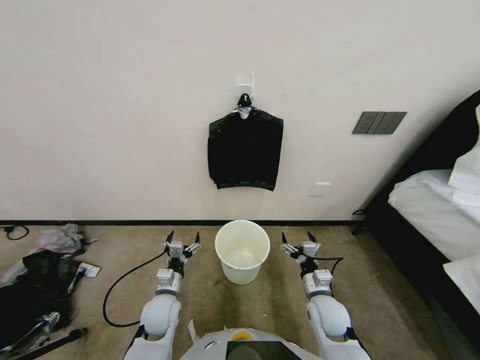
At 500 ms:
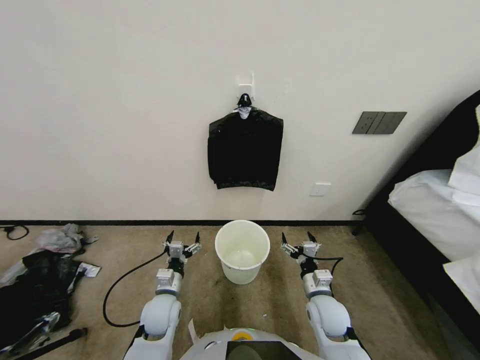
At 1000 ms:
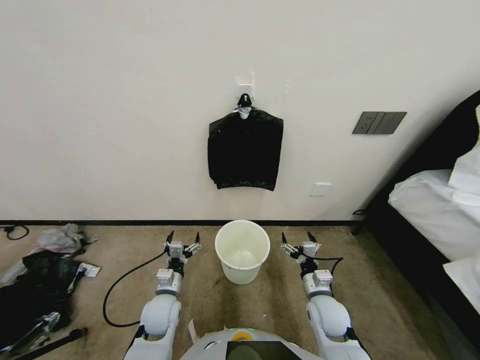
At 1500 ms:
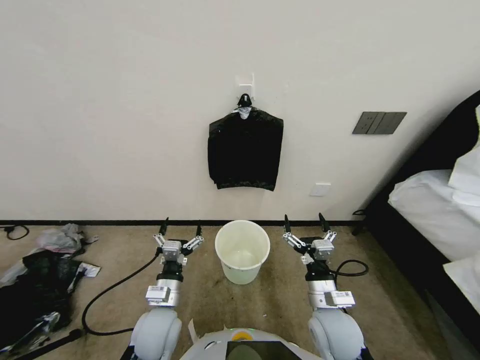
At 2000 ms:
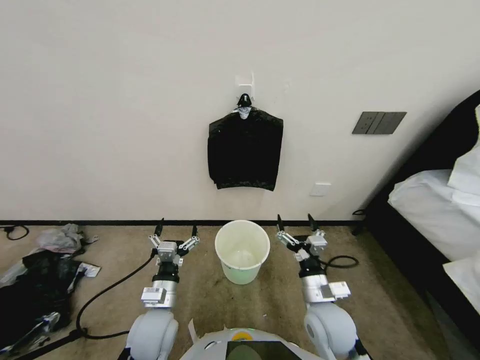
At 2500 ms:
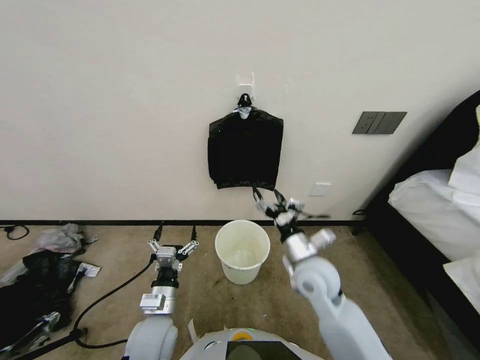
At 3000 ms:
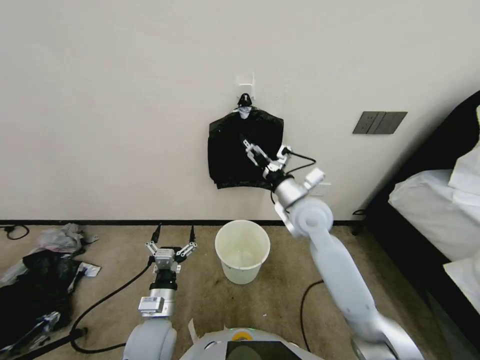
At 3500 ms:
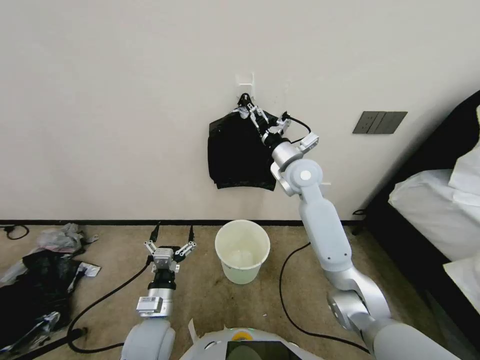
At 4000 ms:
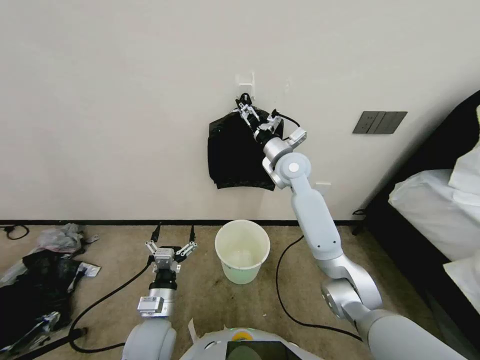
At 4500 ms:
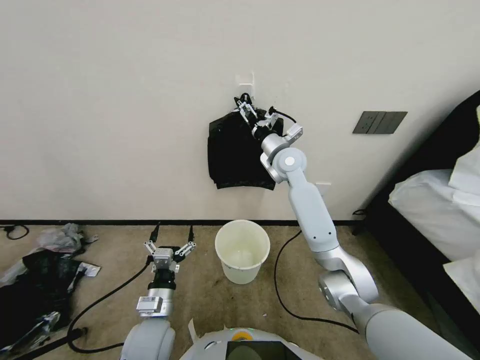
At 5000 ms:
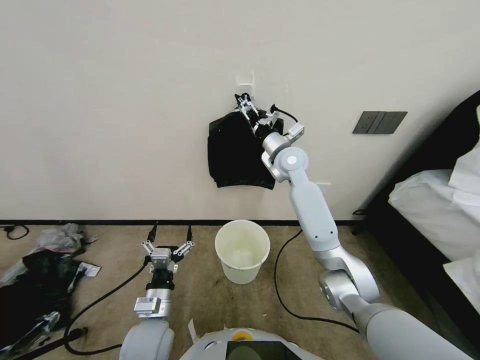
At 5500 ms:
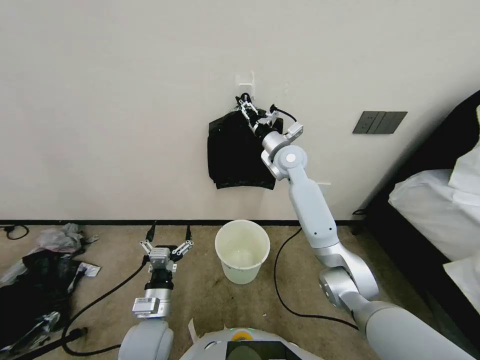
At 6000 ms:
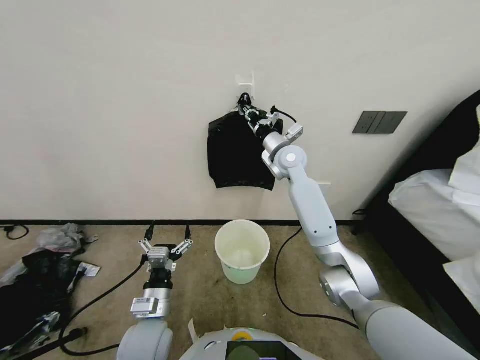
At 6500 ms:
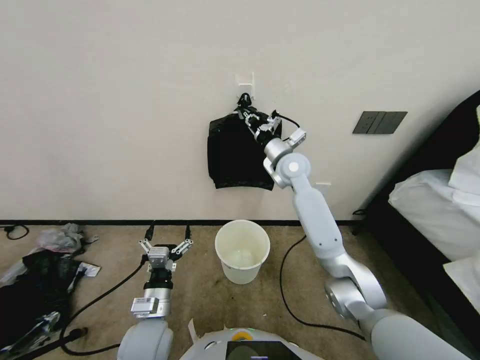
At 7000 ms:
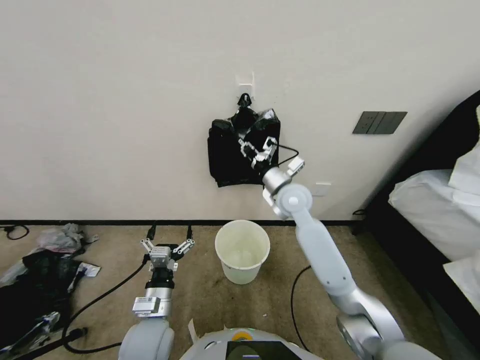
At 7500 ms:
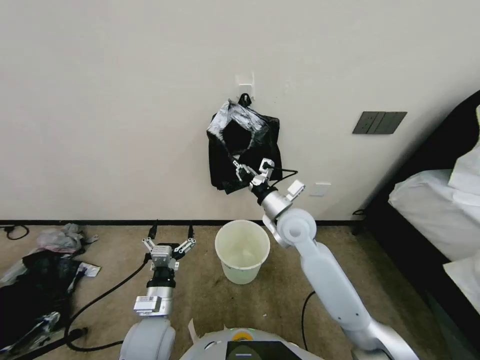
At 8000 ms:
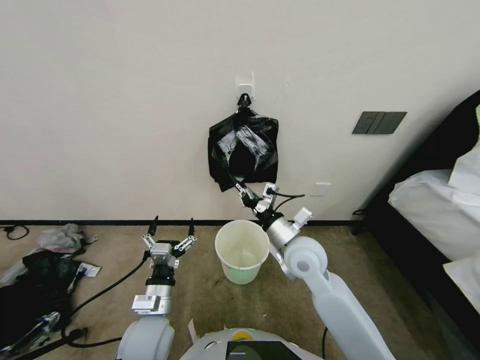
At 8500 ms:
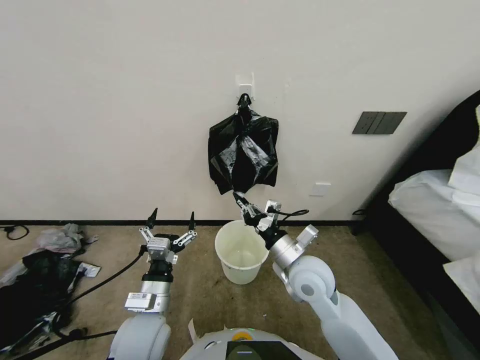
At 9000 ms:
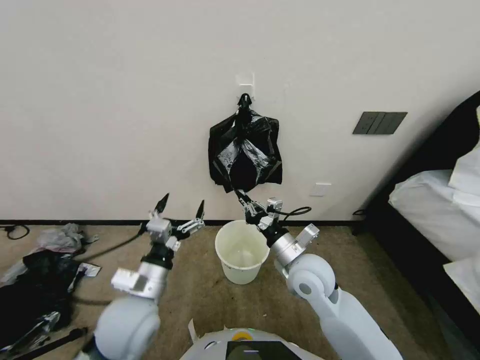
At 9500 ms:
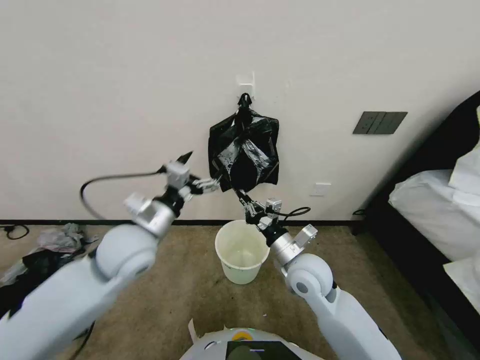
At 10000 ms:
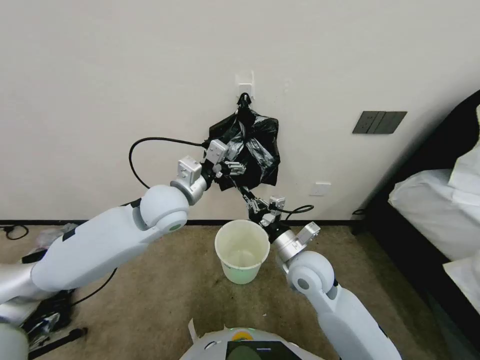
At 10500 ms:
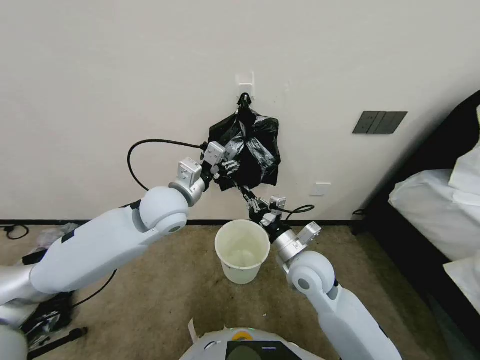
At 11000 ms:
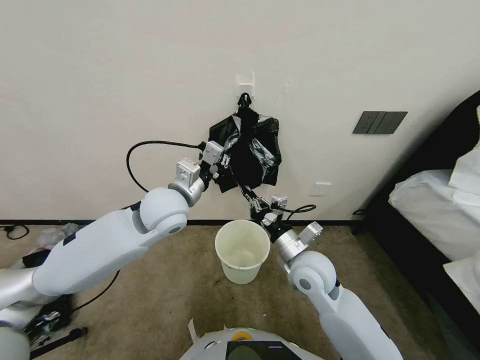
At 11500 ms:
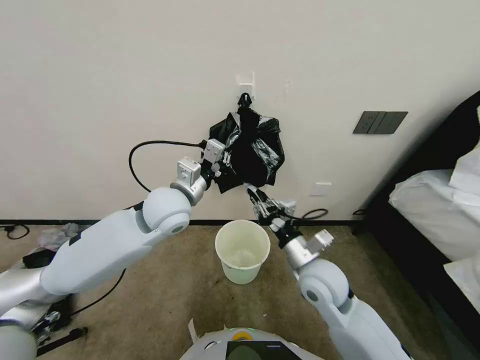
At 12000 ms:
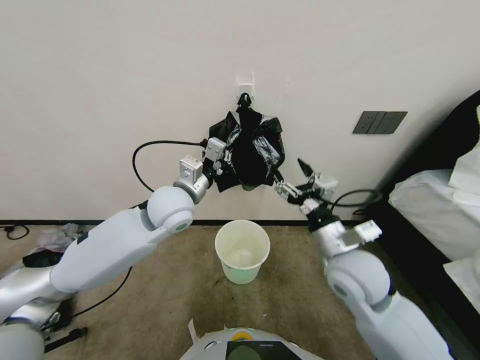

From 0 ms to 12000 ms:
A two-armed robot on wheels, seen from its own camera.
Task of the whole recording: Place a trash bag onto the trash bin.
From 2000 ms to 4000 ms: The right gripper travels forward and upward by some 40 cm.
From 4000 ms to 6000 ms: The right gripper closes up.
From 6000 ms to 8000 ms: The right gripper shifts roughly 25 cm backward and downward.
From 8000 ms to 10000 ms: The left gripper goes some 30 cm upward and forward.
From 10000 ms to 12000 ms: The right gripper heads upward and to the right, covering roughly 10 cm, and opens its fingers. The left gripper closes up.

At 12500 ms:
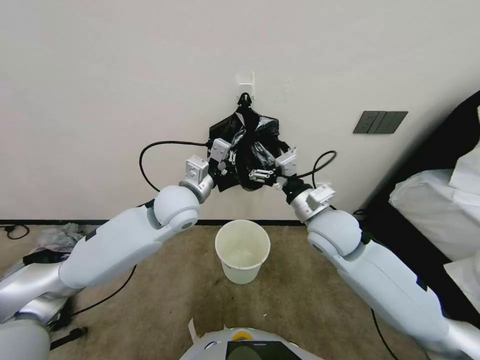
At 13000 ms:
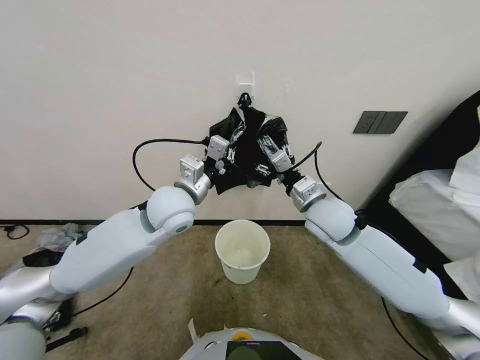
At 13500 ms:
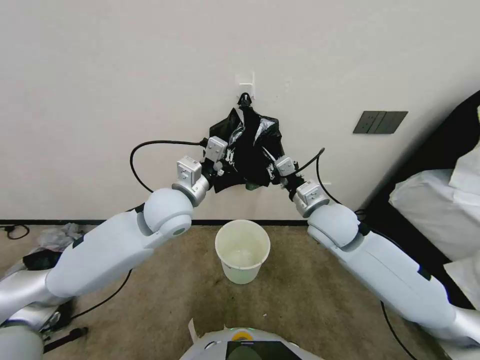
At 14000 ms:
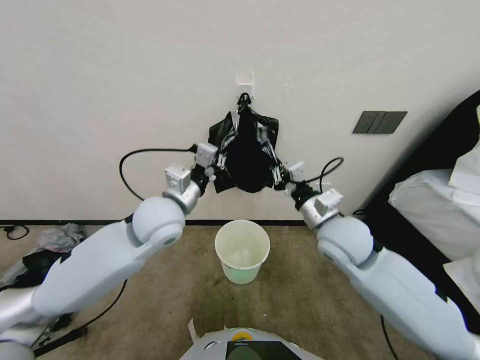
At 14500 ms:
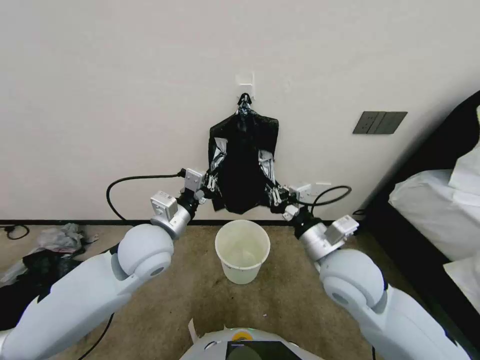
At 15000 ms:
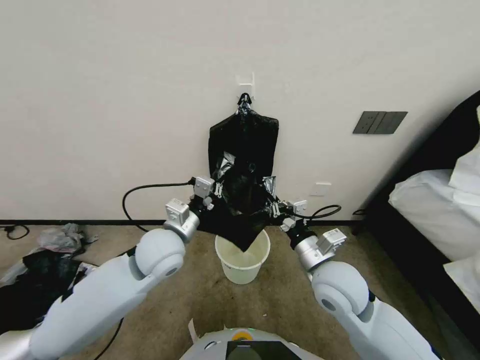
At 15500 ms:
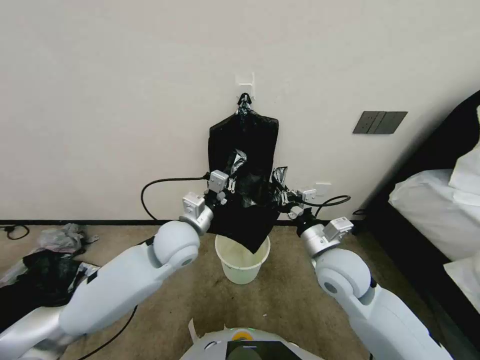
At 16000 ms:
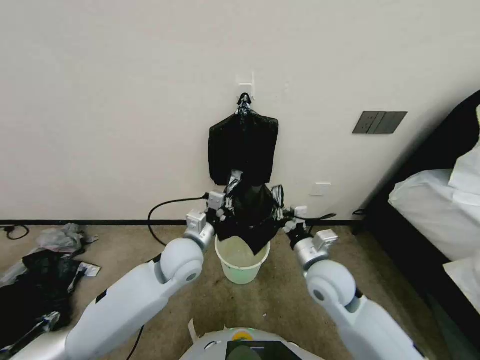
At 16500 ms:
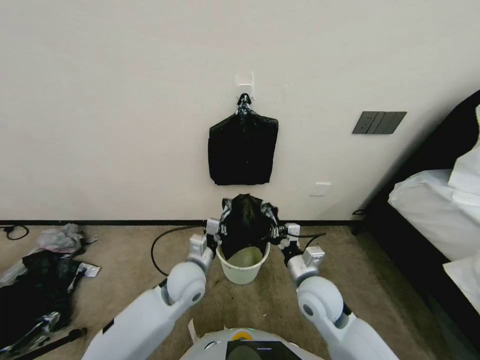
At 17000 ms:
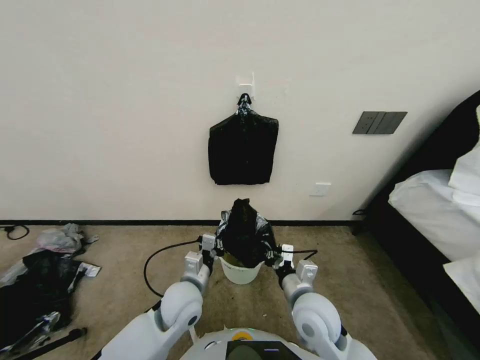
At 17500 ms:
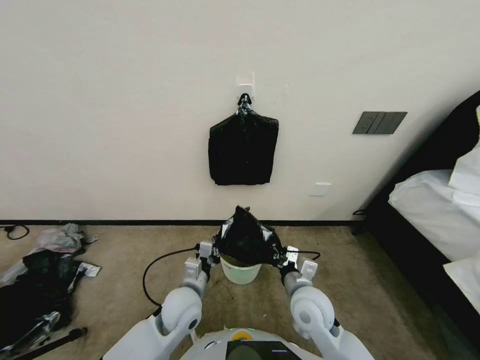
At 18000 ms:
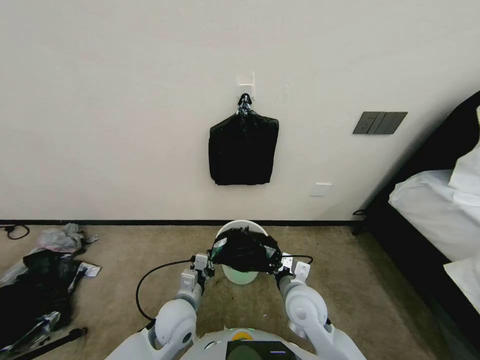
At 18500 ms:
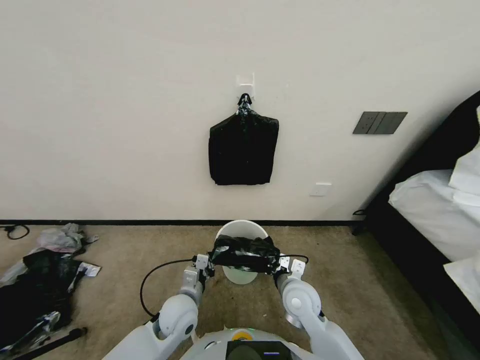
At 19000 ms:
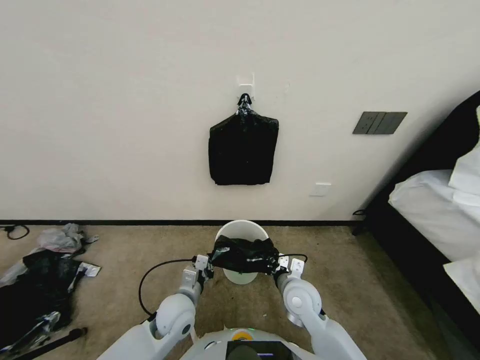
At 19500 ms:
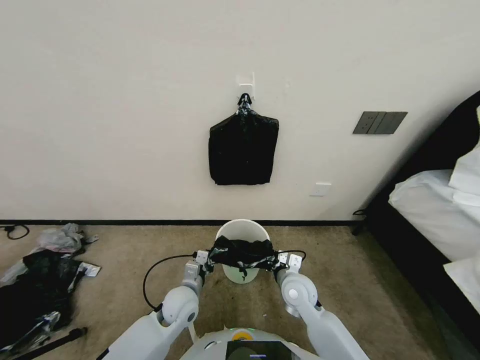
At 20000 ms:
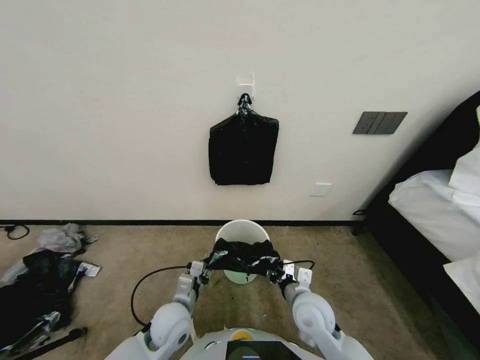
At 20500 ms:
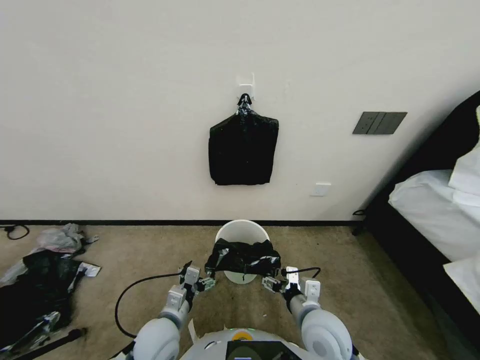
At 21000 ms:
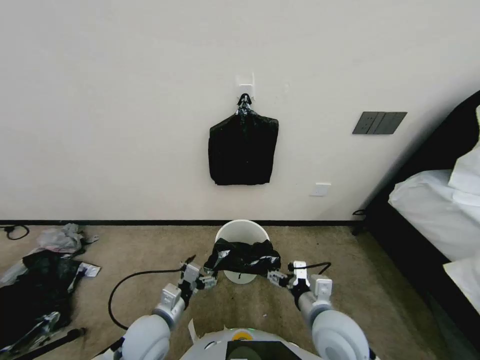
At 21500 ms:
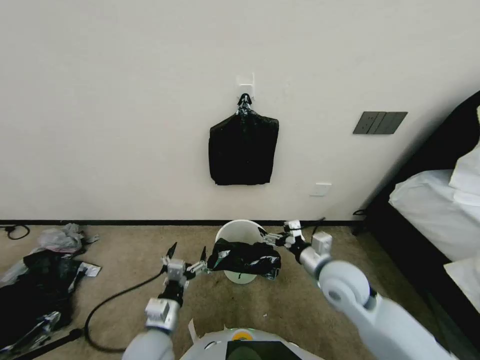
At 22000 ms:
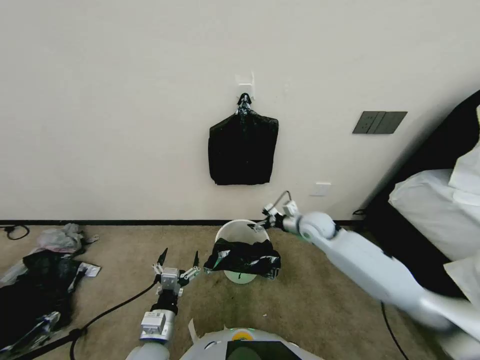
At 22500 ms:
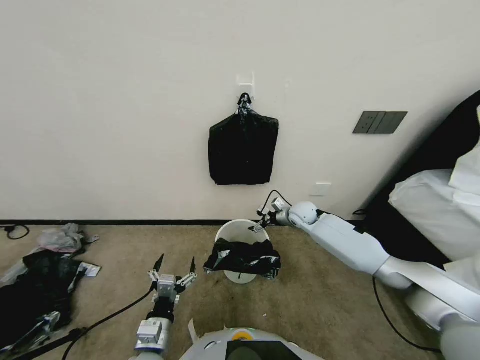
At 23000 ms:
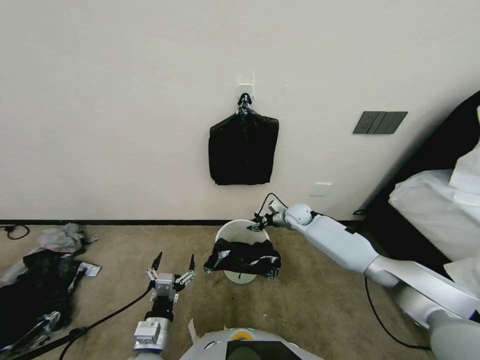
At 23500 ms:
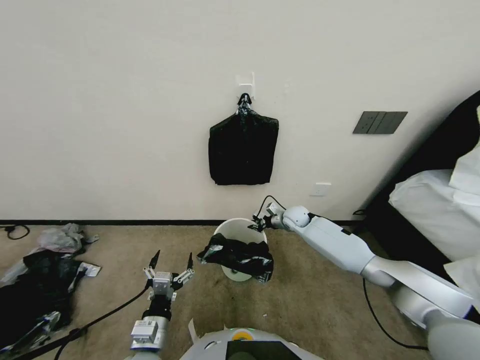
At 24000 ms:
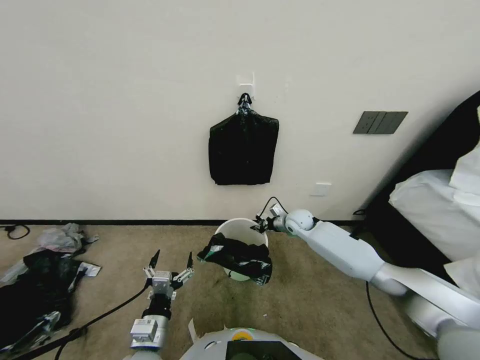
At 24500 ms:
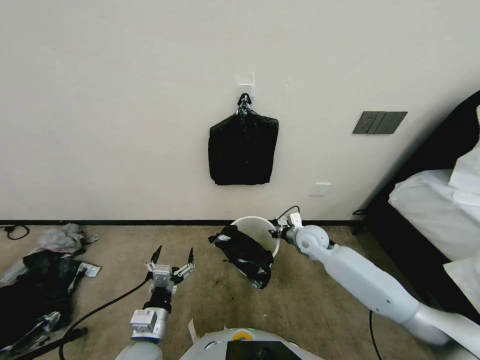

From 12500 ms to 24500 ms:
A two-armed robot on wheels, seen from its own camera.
Task of the whole recording: Place a trash bag onto the trash bin.
From 12500 ms to 14500 ms: Both grippers move backward, roughly 5 cm. The right gripper closes its fingers.
From 14500 ms to 16500 ms: Both grippers travel together downward, approximately 15 cm.
From 16500 ms to 18500 ms: The left gripper shifts approximately 10 cm downward and backward. The right gripper moves downward, some 5 cm.
From 18500 ms to 20500 ms: The left gripper ends up some 5 cm from where it was, and opens. The right gripper travels backward by approximately 5 cm, and opens up.
From 20500 ms to 22500 ms: The left gripper moves backward, approximately 5 cm. Meanwhile the right gripper shifts roughly 35 cm forward.
From 22500 ms to 24500 ms: The right gripper heads backward, covering about 10 cm, and closes its fingers.

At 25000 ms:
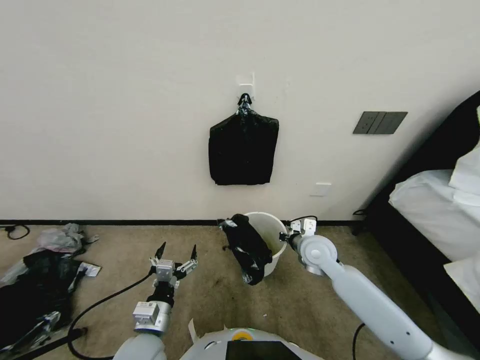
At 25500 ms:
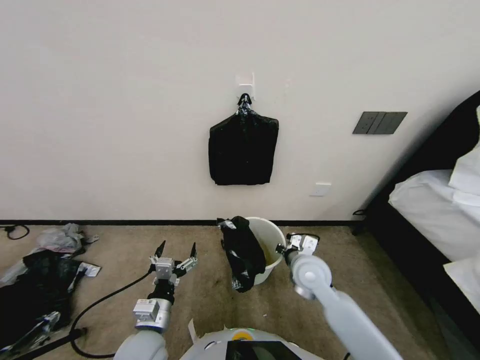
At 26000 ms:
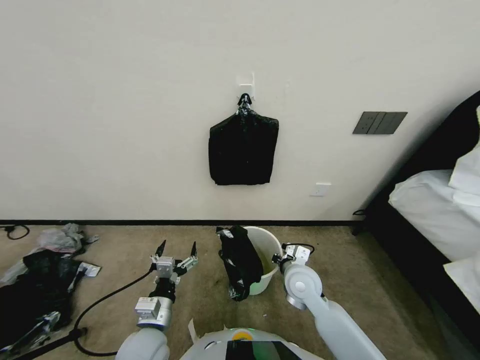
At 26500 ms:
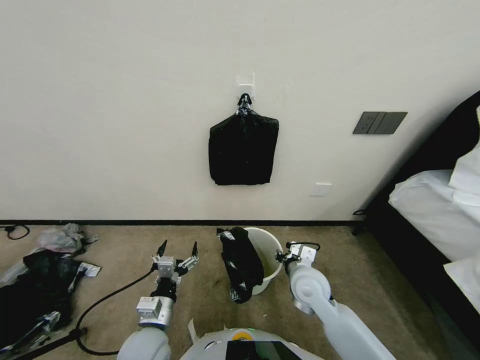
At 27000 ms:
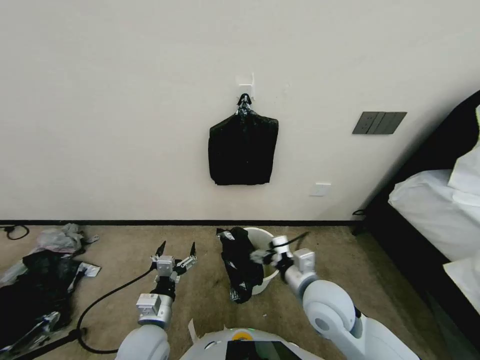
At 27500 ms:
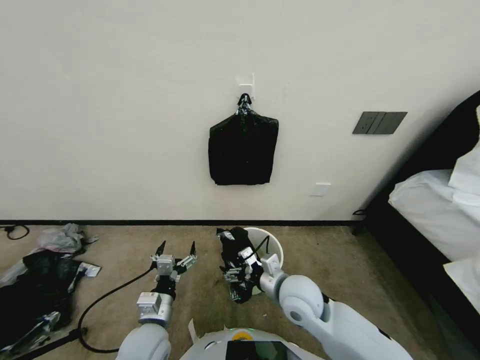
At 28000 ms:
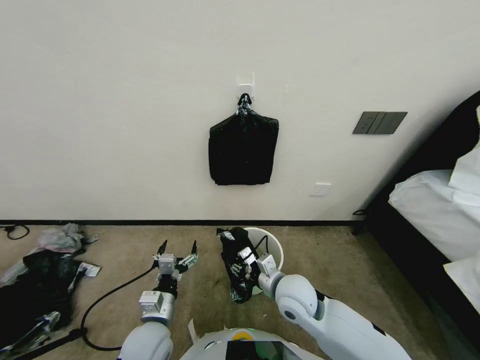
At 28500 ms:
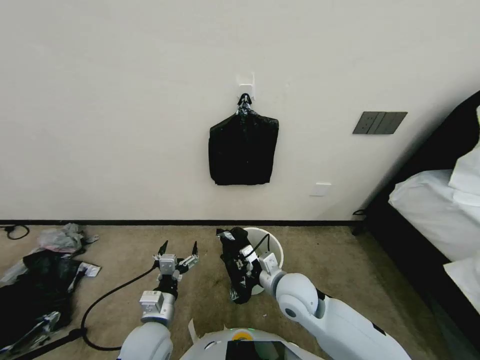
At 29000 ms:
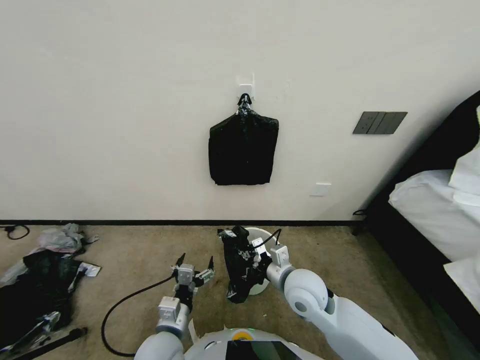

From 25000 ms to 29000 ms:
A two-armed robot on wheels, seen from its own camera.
Task of the whole recording: Place a trash bag onto the trash bin.
From 25000 ms to 27000 ms: The right gripper moves backward, some 15 cm, and opens up.
From 27000 ms to 29000 ms: The right gripper ends up roughly 5 cm from where it was, and closes up.
